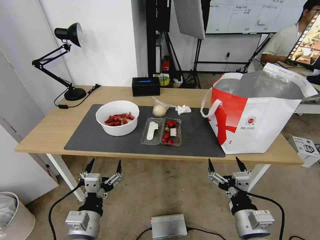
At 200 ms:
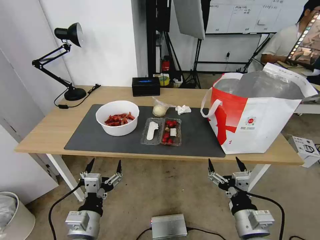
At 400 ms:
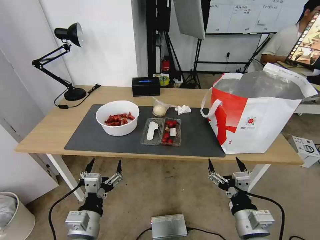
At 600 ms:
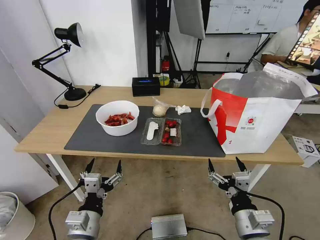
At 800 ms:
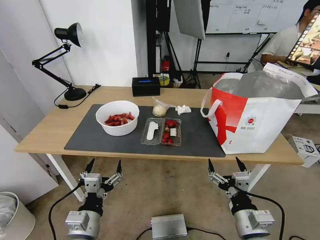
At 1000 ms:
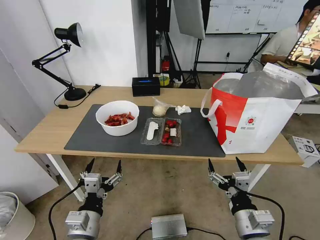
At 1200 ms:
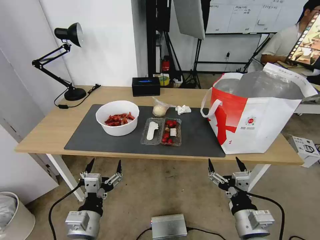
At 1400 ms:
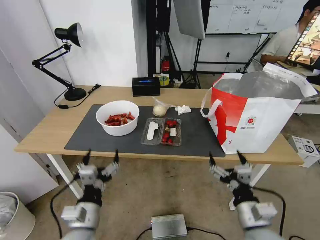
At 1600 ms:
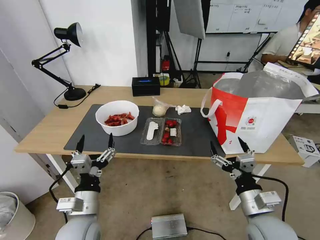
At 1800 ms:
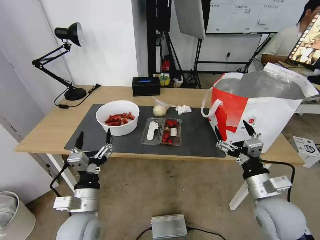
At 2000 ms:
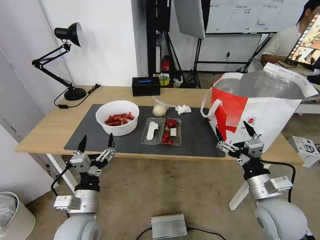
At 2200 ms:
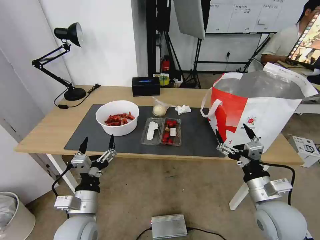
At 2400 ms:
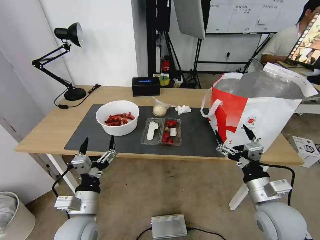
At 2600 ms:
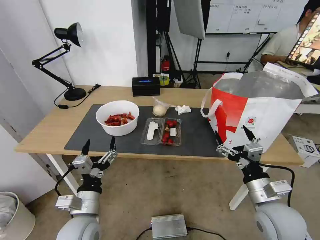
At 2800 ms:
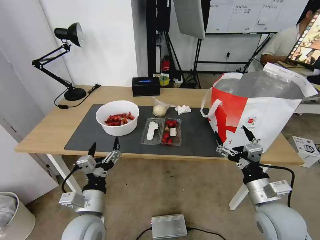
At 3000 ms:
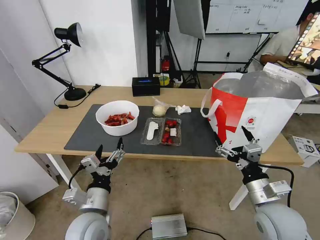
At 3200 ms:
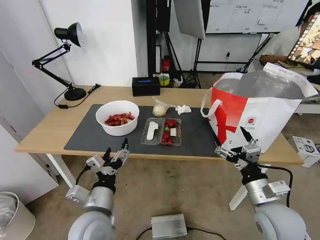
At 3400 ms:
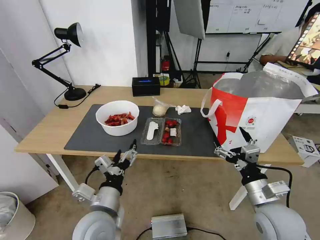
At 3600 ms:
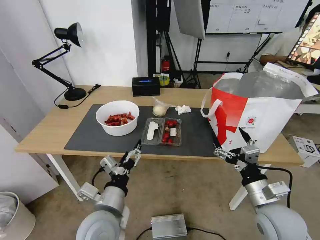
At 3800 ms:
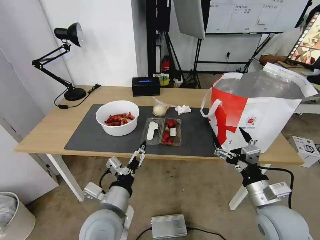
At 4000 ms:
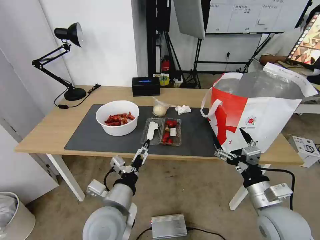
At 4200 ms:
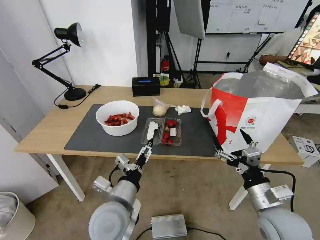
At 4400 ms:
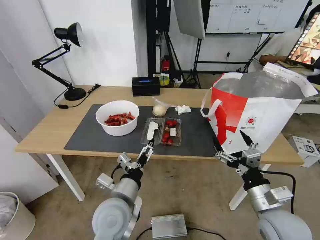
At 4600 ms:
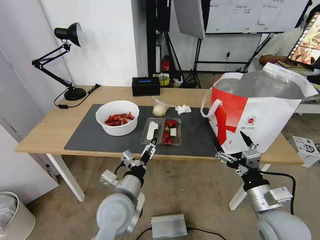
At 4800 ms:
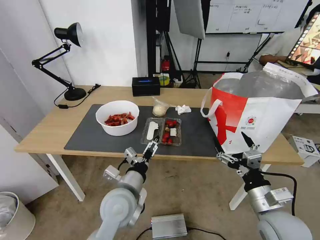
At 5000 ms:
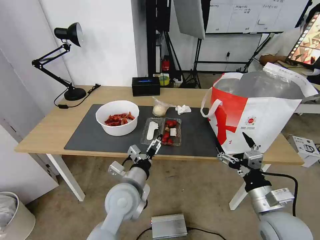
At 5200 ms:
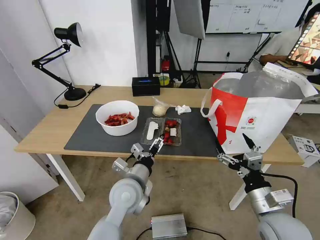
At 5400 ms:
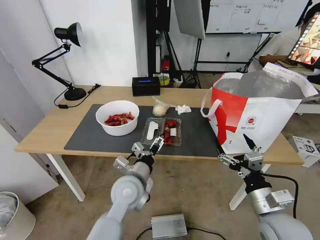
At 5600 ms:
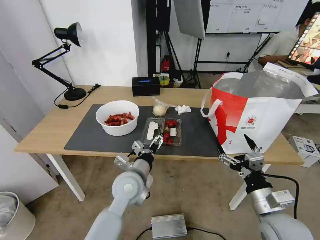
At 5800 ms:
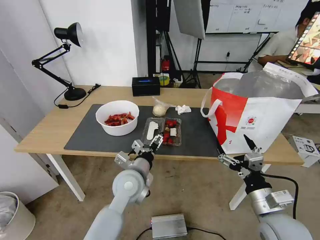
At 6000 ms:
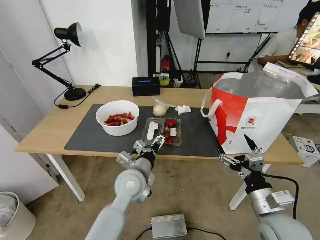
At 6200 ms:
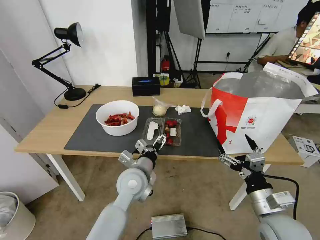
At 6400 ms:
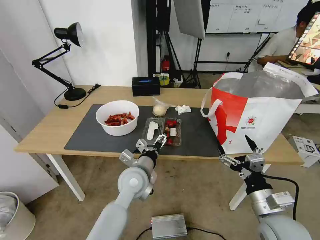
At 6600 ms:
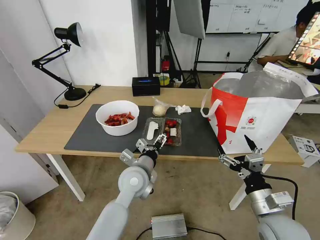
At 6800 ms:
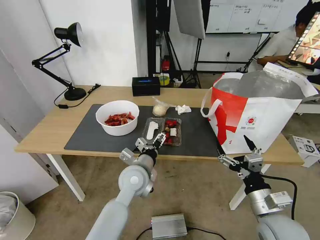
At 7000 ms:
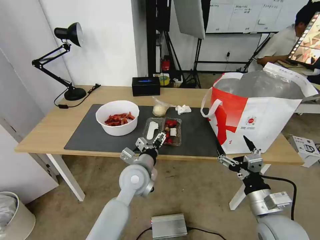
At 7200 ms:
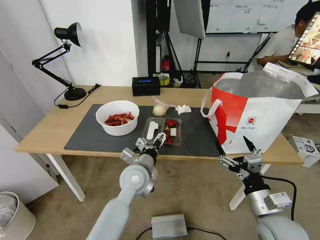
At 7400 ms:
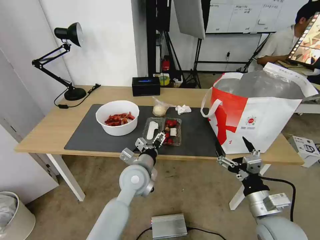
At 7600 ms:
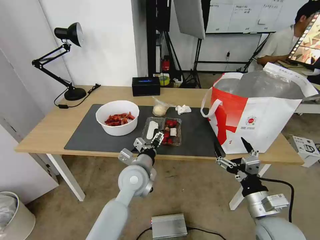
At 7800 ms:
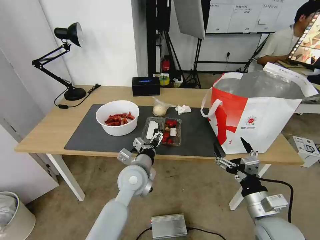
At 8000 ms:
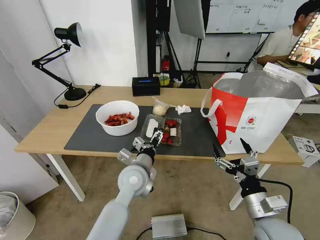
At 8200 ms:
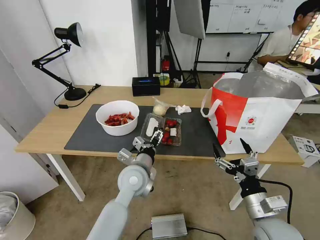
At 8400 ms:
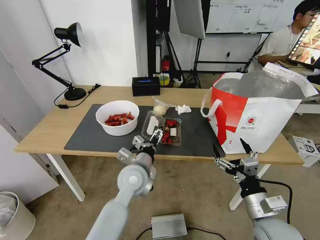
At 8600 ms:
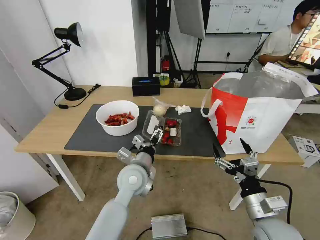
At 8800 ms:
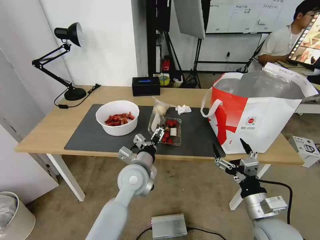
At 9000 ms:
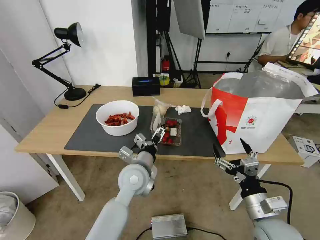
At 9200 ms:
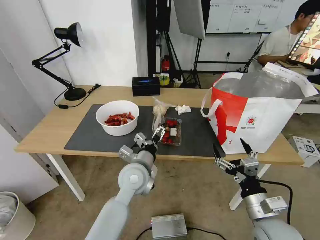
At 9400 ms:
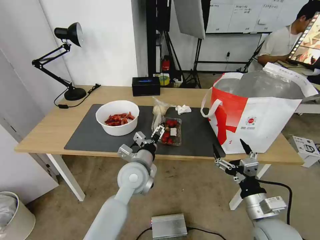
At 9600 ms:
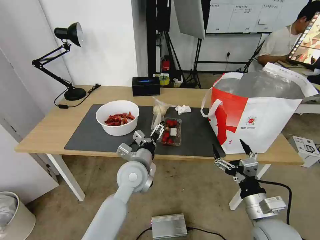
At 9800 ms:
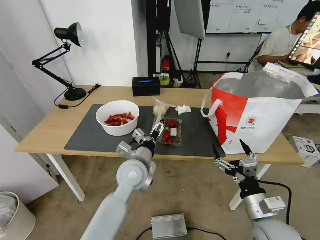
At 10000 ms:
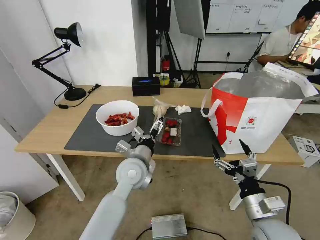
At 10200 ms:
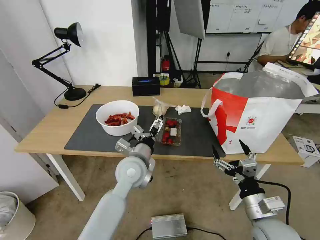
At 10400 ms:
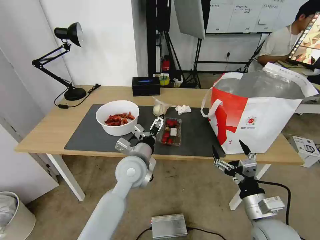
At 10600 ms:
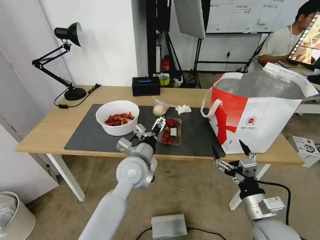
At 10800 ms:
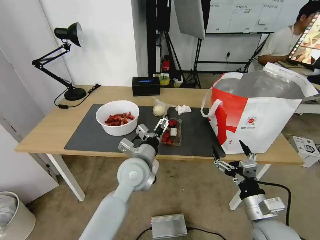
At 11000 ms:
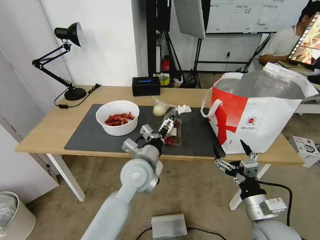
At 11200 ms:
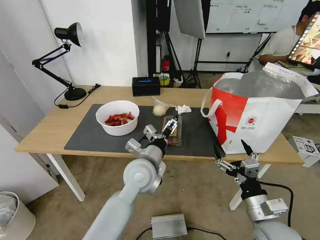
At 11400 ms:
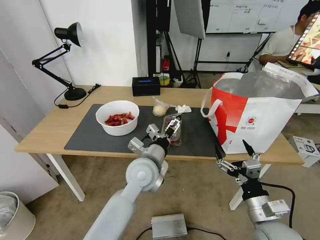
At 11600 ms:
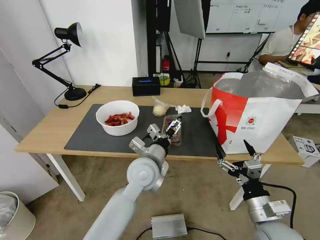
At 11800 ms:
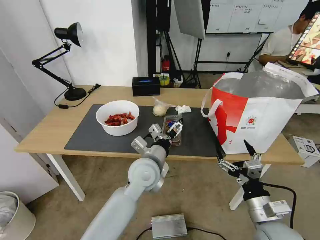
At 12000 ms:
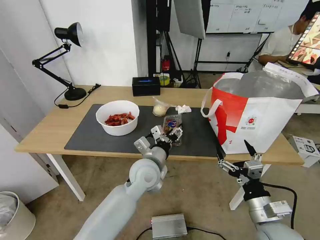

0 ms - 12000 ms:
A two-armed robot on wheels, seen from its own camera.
Task of the whole recording: Pick up the trash from the table and place it into the takeout bag.
3000 ms - 4400 ms: The left gripper moves to the right, approximately 5 cm.
4400 ms - 6000 ms: The left gripper goes about 10 cm forward.
6000 ms - 7600 ms: There are only small adjustments of the grippers.
7600 ms - 9000 ms: Both grippers stay about where they are.
9000 ms - 10400 ms: The grippers make only small movements.
10400 ms - 12000 ms: The left gripper closes its fingers.

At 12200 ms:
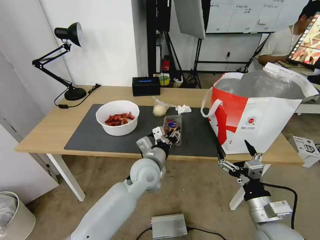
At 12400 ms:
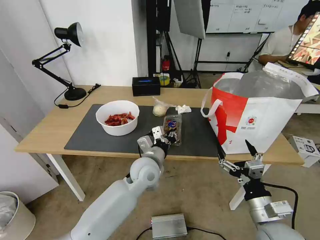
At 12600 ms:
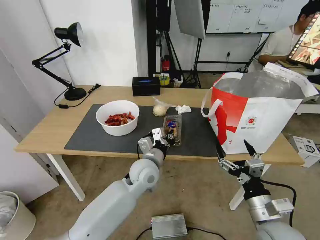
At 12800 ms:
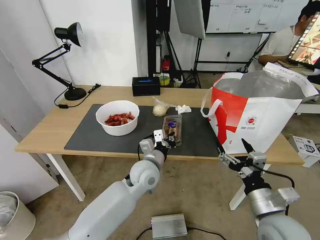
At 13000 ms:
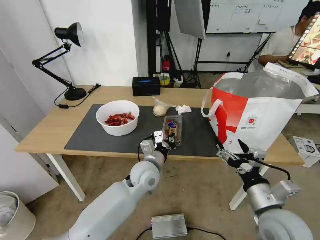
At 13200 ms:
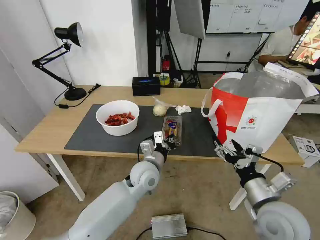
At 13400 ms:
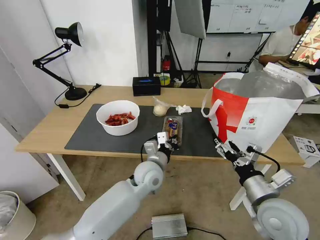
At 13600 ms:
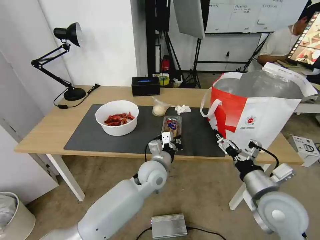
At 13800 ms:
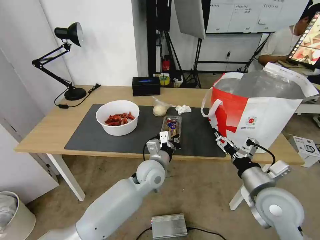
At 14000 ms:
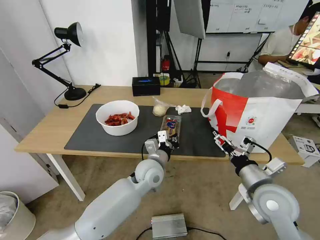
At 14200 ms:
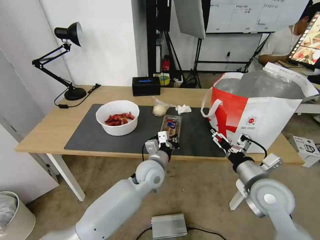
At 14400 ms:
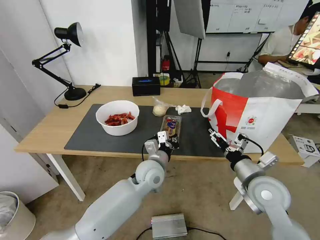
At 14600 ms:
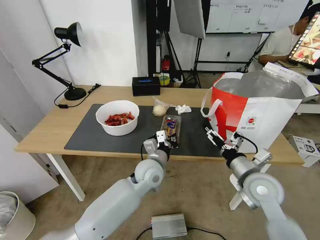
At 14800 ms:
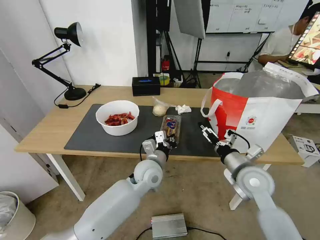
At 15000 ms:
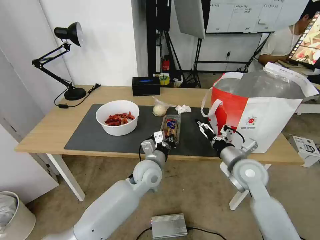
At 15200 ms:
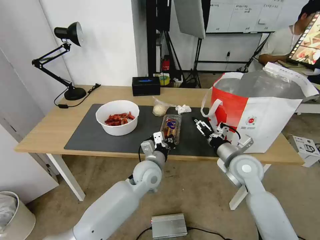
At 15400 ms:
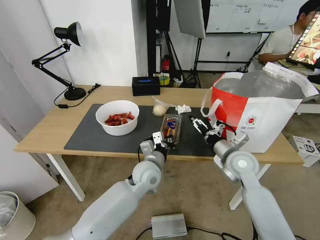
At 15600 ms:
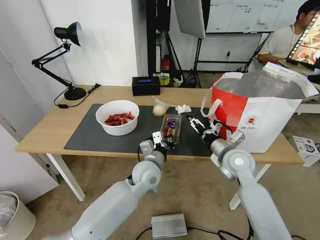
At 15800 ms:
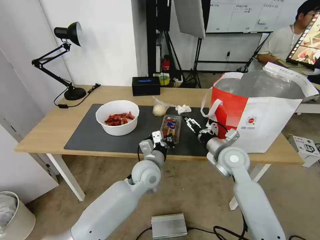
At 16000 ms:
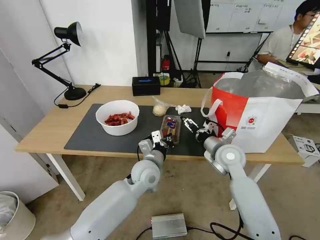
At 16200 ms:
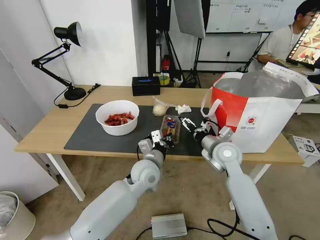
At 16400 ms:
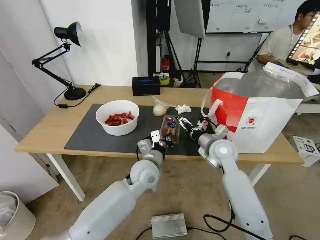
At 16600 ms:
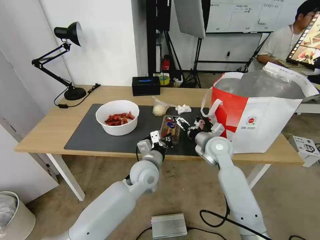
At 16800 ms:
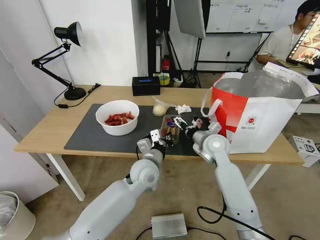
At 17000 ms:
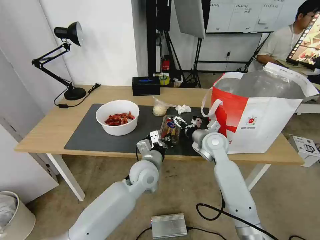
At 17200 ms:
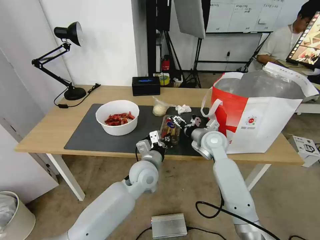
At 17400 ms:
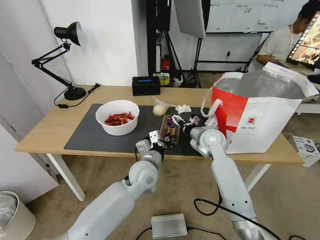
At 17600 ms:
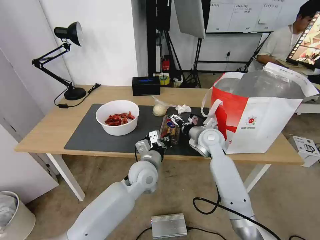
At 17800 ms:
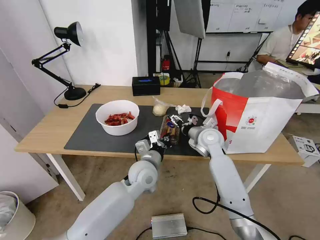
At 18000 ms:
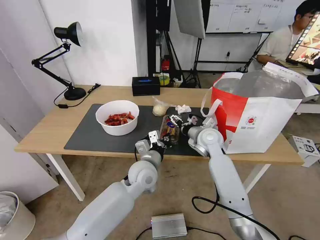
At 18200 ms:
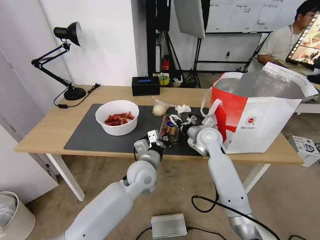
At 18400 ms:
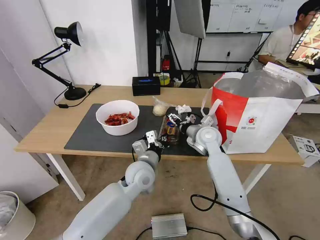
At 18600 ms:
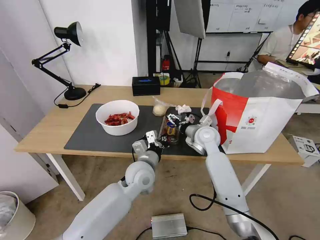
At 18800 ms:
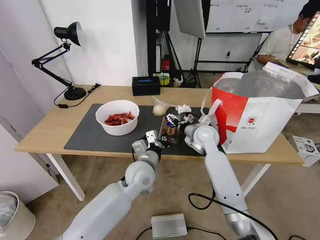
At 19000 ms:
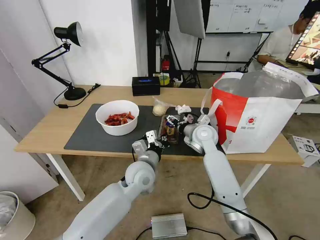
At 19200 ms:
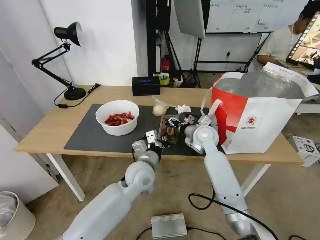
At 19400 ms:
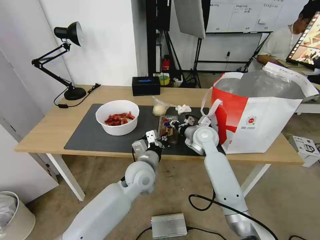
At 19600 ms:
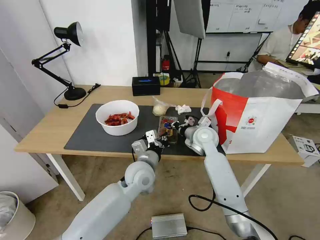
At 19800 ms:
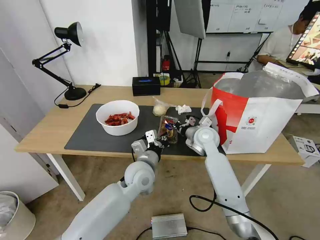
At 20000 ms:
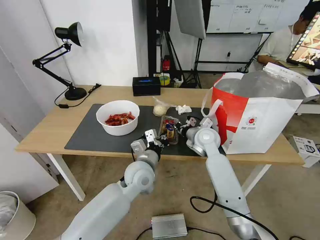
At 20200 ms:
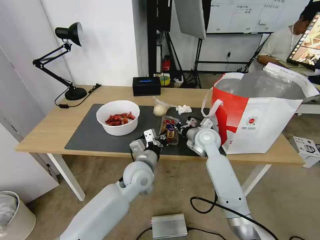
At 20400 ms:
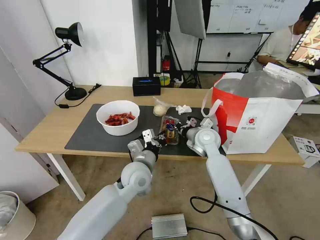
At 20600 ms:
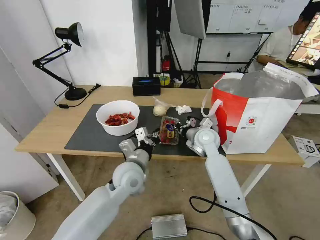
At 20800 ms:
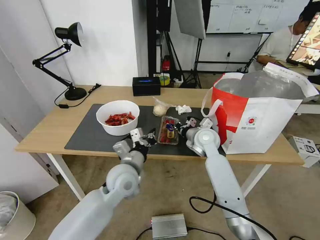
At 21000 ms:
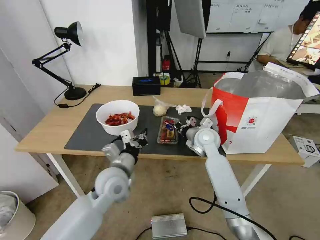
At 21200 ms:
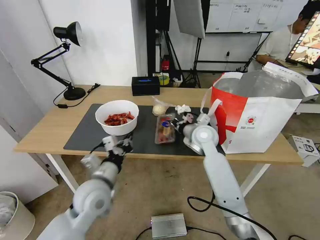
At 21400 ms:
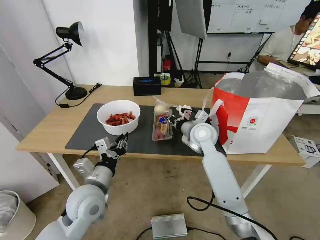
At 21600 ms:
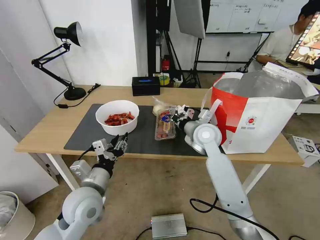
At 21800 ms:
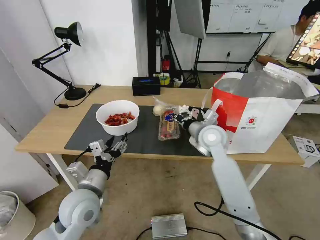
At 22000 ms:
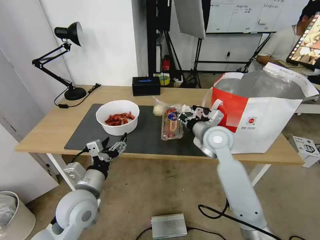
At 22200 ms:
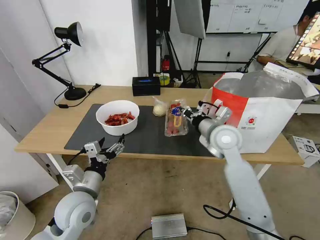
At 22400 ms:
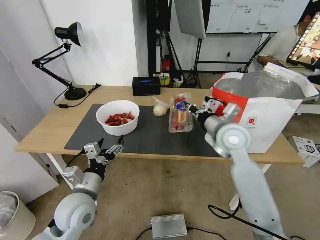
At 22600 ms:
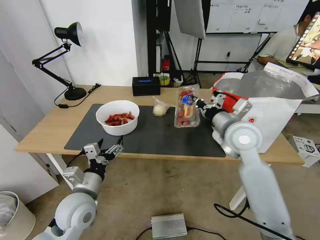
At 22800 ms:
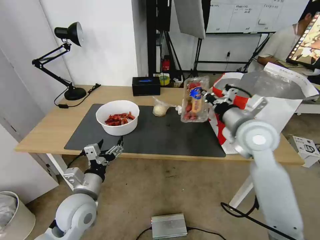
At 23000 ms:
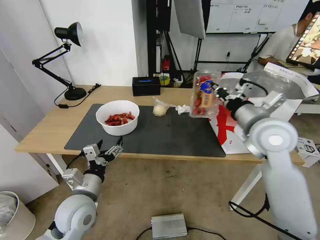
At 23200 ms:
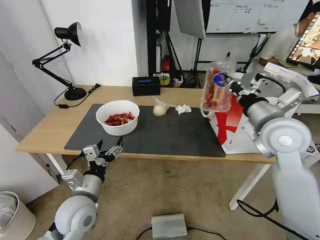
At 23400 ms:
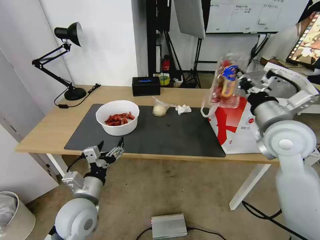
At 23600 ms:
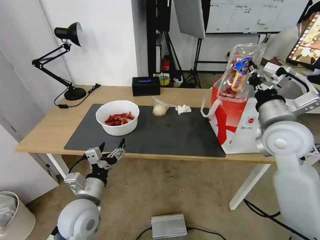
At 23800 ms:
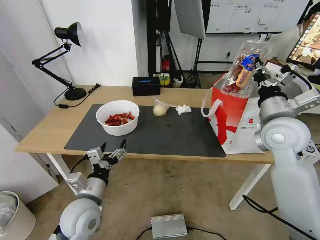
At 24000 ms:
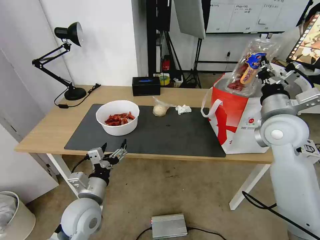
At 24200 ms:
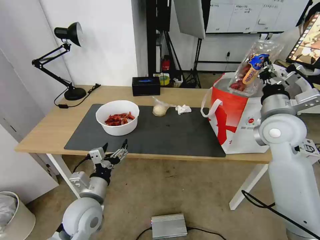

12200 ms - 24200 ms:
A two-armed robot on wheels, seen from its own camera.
Task of the whole recording: Pick up the trash from the table and place it into the takeout bag.
12200 ms - 13800 ms: The left gripper closes its fingers, while the right gripper shifts about 10 cm forward and upward.
13800 ms - 15200 ms: The right gripper goes about 10 cm forward.
15200 ms - 16600 ms: The right gripper travels forward and to the left by roughly 10 cm.
16600 ms - 18200 ms: The grippers make only small movements.
18200 ms - 19800 ms: The right gripper closes its fingers.
19800 ms - 21200 ms: The left gripper goes approximately 15 cm to the left and backward.
21200 ms - 22600 ms: The right gripper travels upward, backward and to the right by approximately 15 cm; the left gripper goes approximately 5 cm to the left, and opens its fingers.
22600 ms - 24200 ms: The right gripper goes approximately 10 cm to the right.
